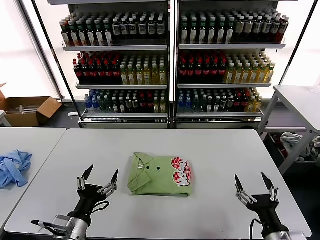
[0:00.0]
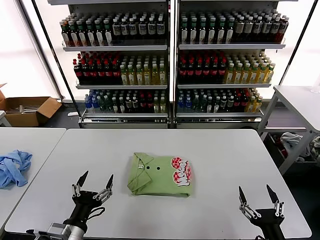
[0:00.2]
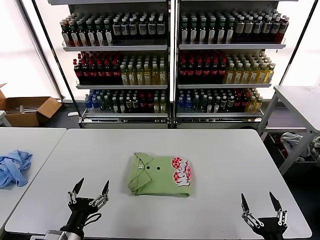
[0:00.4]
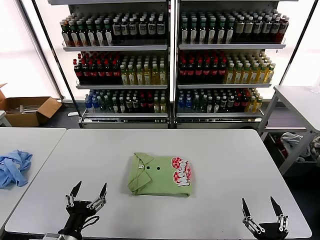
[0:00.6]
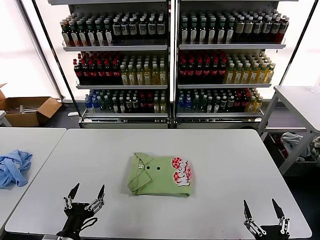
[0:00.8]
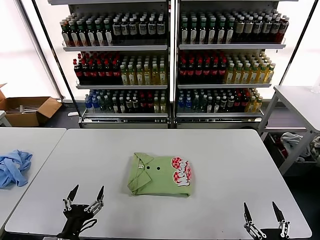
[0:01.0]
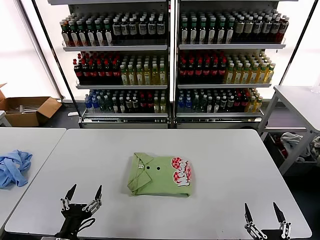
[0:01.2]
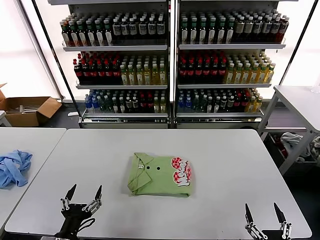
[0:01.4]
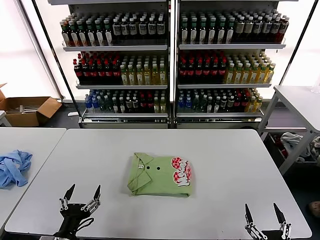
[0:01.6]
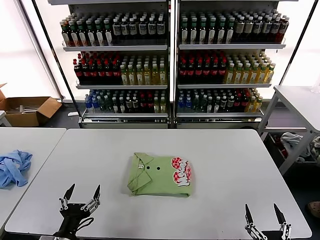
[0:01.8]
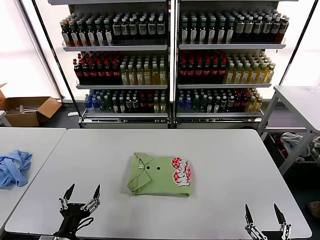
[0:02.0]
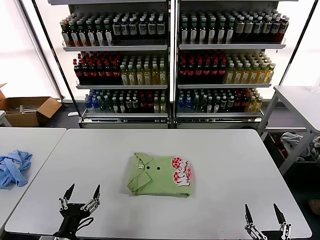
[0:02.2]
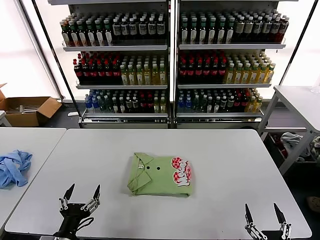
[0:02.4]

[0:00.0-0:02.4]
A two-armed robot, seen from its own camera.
Task of the whole recording: fold and organize the clothes.
0:00.0 to 0:01.2: The right gripper shifts about 10 cm backward and downward. Meanwhile the left gripper changes place by roughly 5 cm.
0:01.2 to 0:02.4: Neither gripper changes place.
